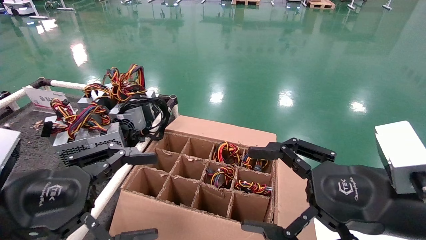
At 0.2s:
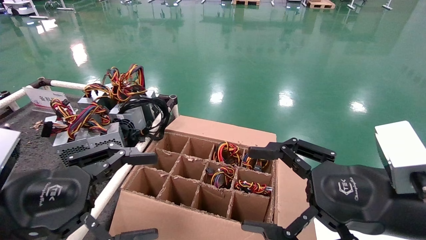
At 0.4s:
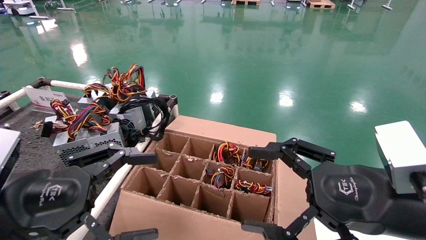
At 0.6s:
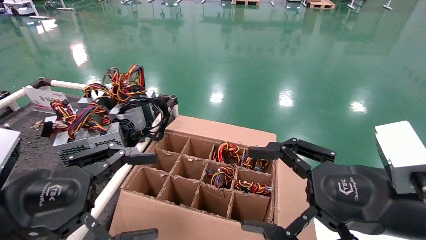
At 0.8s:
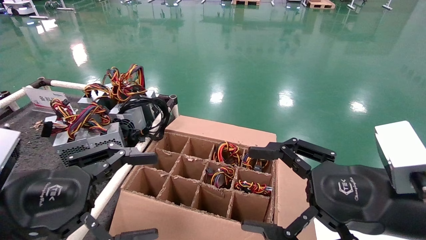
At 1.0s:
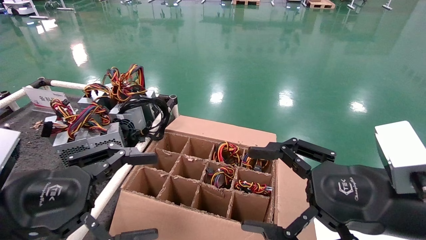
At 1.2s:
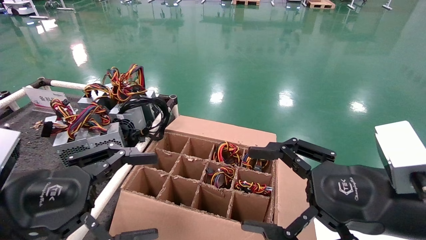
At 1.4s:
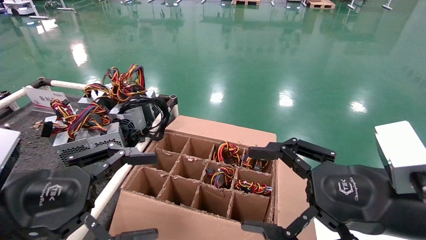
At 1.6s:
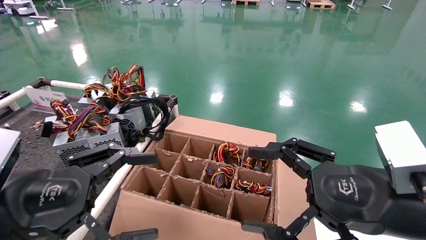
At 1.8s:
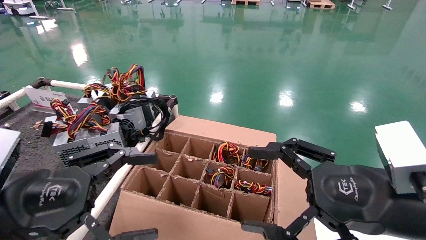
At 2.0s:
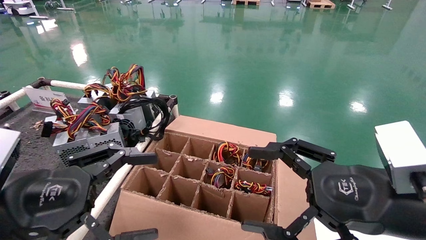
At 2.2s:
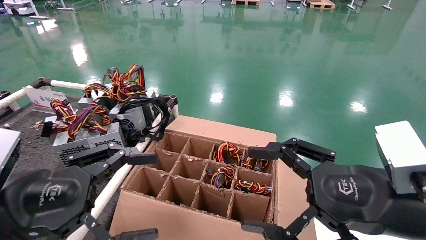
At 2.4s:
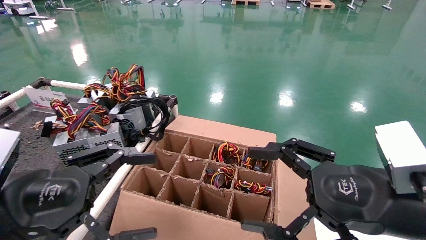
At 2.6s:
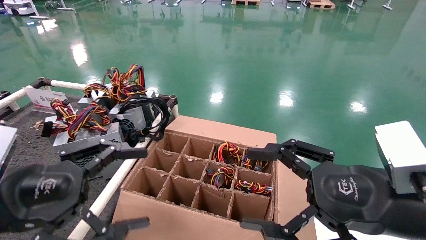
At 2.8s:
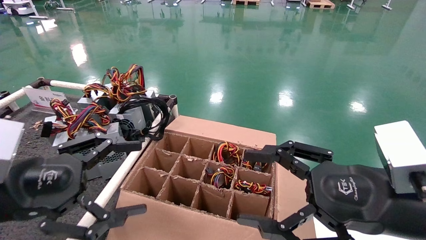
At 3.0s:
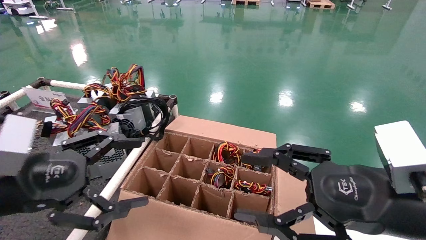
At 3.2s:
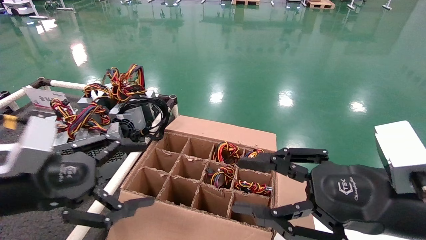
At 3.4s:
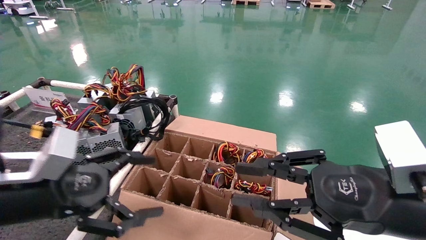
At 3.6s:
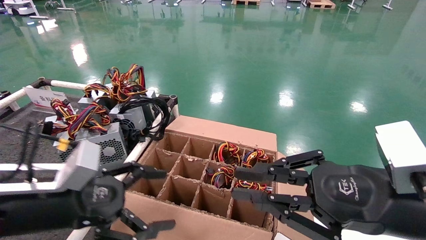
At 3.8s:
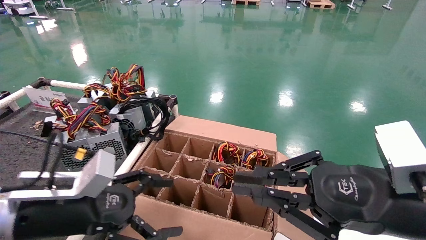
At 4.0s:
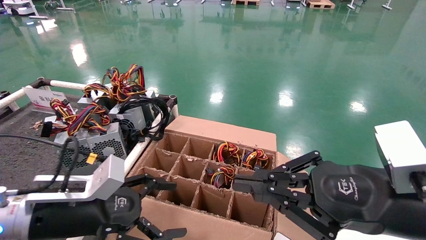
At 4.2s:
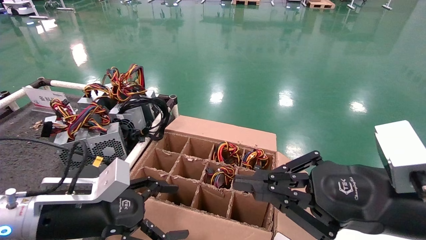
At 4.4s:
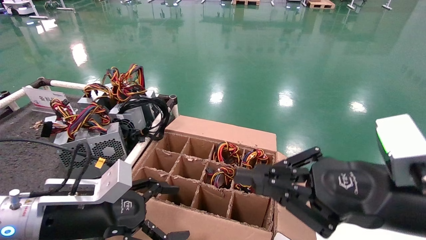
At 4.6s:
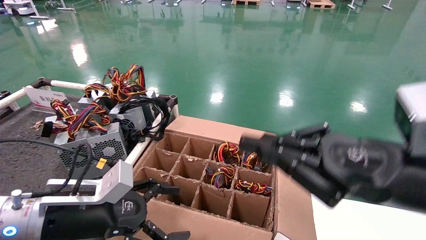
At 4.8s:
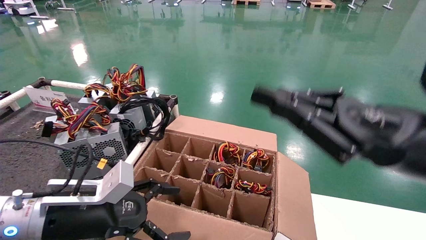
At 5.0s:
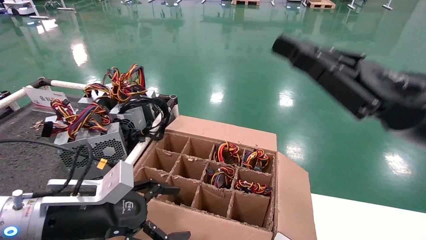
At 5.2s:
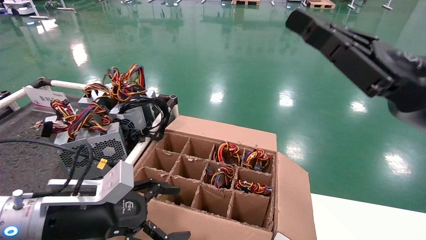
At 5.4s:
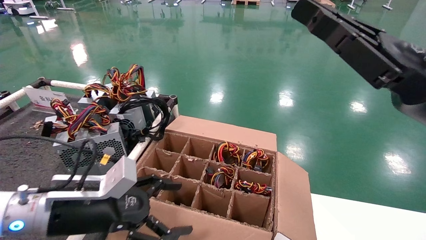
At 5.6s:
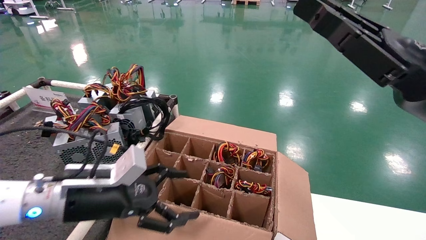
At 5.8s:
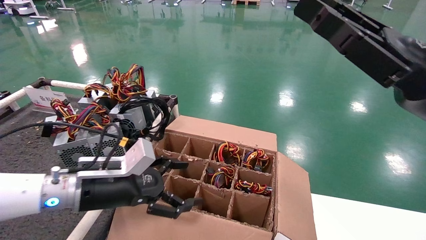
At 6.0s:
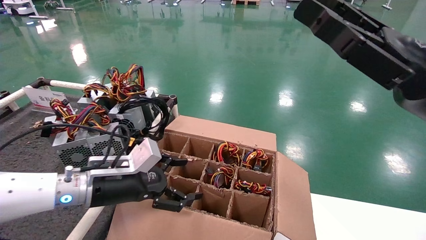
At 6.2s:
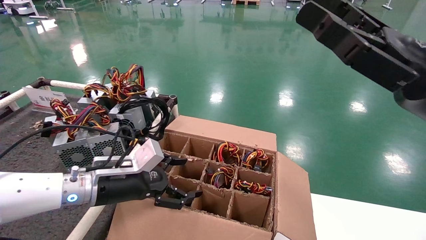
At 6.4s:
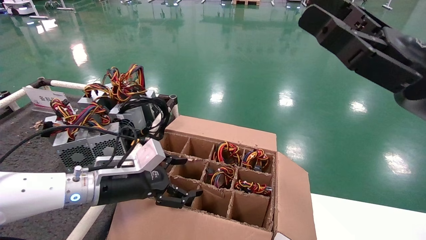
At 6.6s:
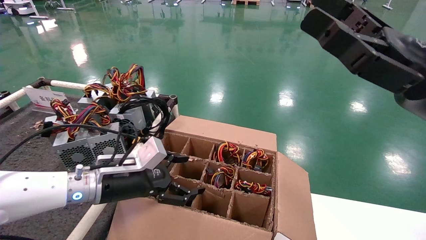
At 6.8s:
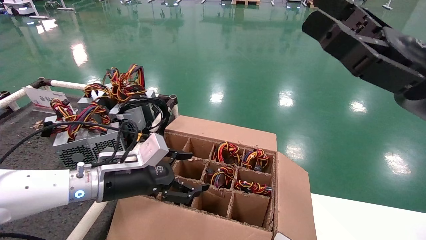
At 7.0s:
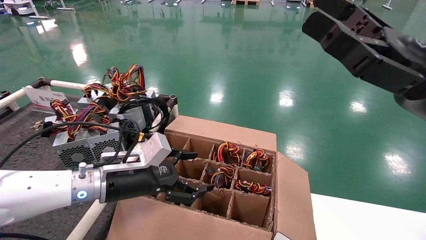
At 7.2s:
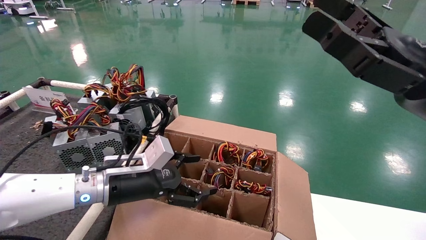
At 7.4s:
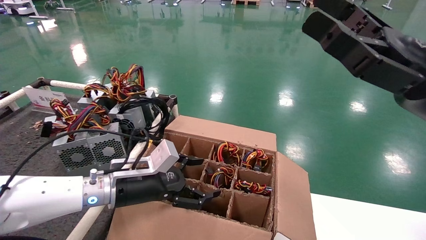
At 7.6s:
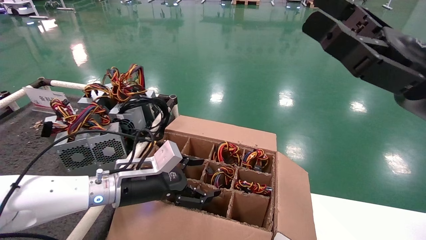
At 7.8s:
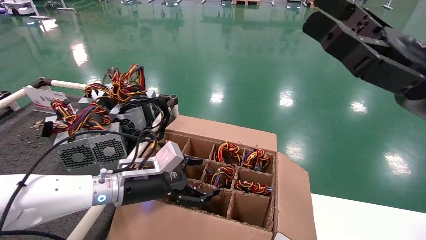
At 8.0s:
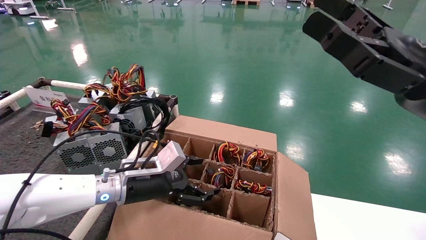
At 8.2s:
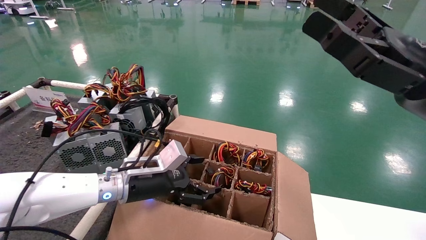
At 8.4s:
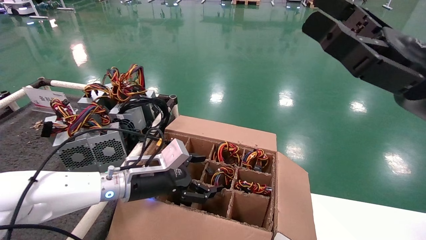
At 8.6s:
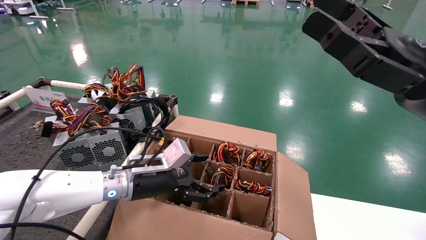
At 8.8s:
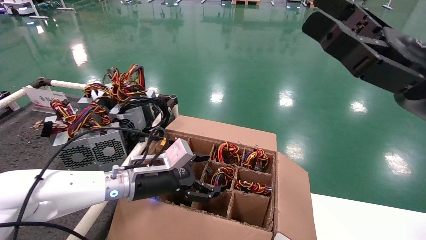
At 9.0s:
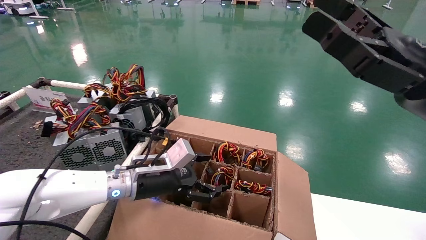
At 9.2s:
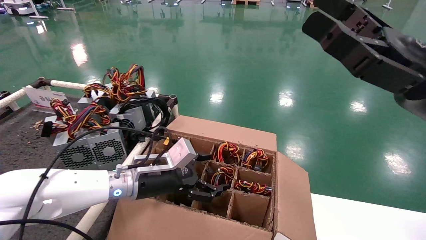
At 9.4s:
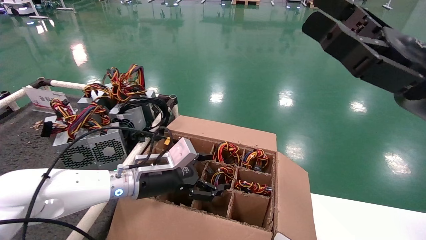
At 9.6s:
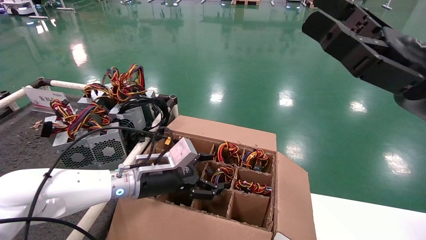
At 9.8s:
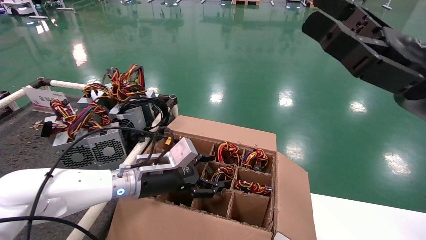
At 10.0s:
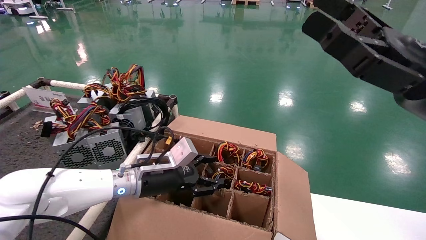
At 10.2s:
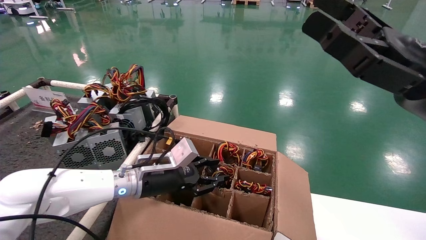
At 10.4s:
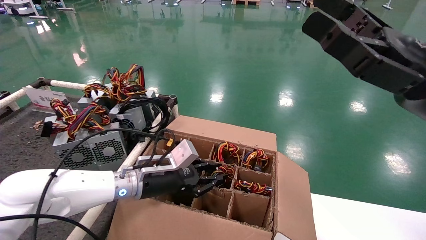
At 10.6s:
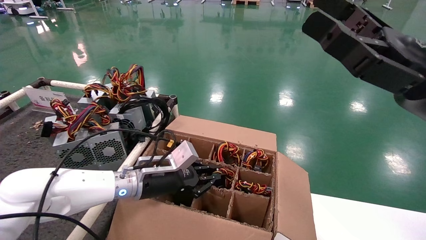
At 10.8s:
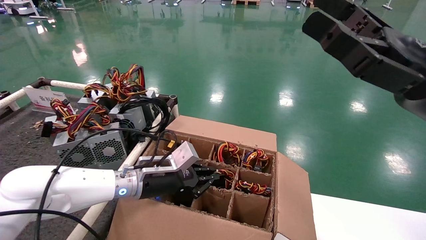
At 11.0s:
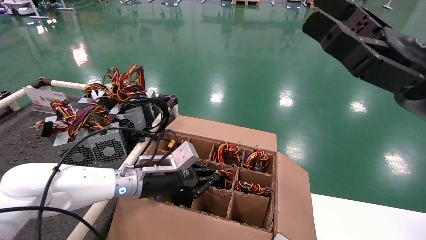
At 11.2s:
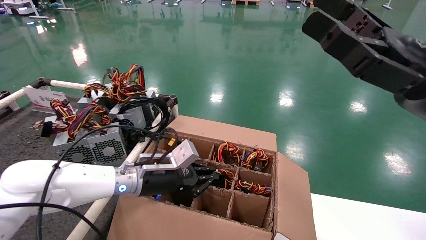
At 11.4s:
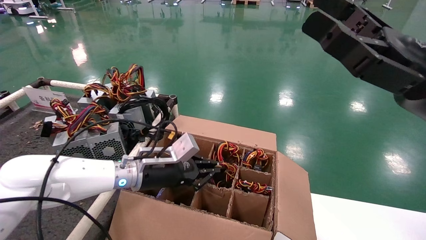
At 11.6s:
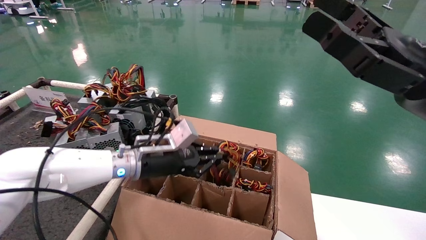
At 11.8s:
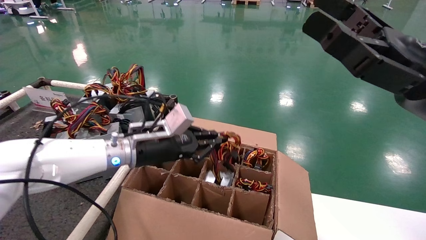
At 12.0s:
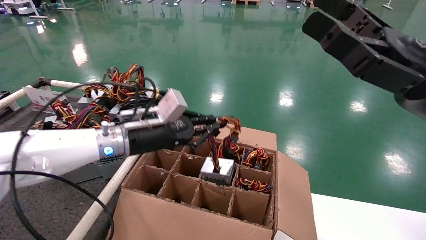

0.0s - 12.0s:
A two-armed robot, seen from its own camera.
Step, 0.0s - 10.8s: Grasp the battery.
0.0s - 1.6s: Both grippers stay put.
1.6s - 3.0s: The grippers stay close to where they were, moving slightly.
3.0s - 4.4s: The left gripper heads downward, forward and to the right, covering roughly 10 cm. The right gripper closes its fingers.
4.4s - 6.0s: The left gripper shifts roughly 5 cm forward; the right gripper shifts approximately 10 cm upward.
6.0s - 7.6s: The right gripper opens its fingers, while the left gripper changes place by about 5 cm.
7.6s - 9.0s: The grippers stay close to where they were, moving slightly.
9.0s - 10.4s: The left gripper closes its fingers.
10.4s - 12.0s: The left gripper heads upward, covering approximately 10 cm, and closes up.

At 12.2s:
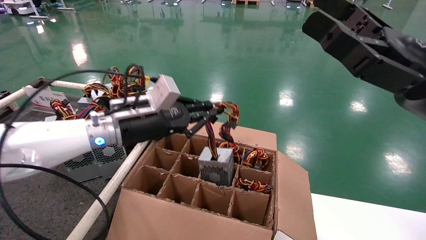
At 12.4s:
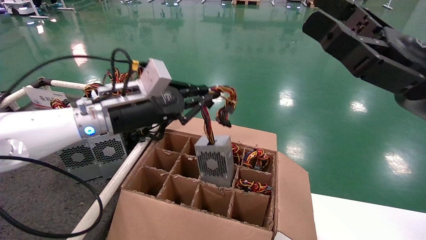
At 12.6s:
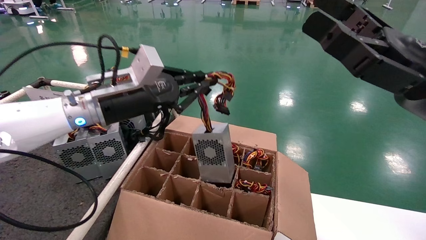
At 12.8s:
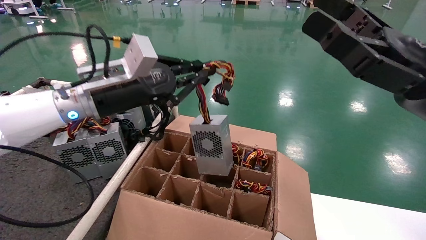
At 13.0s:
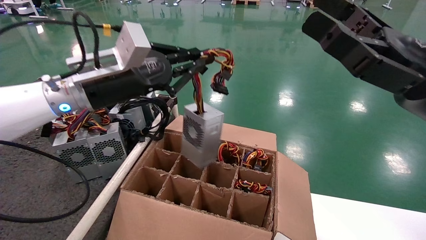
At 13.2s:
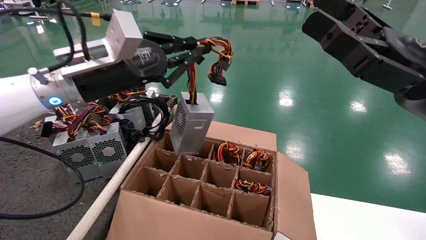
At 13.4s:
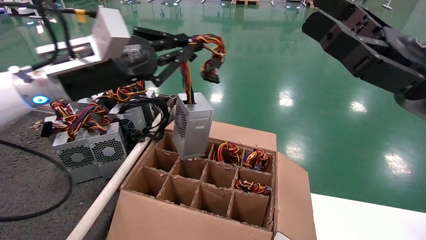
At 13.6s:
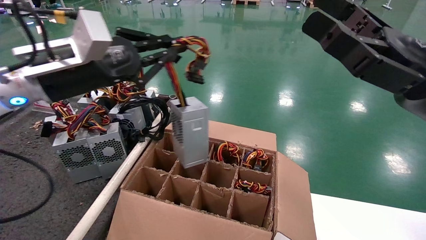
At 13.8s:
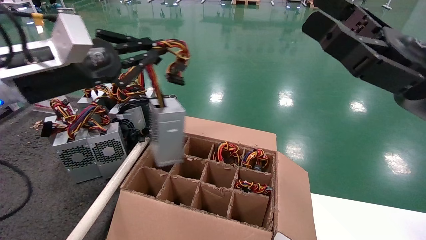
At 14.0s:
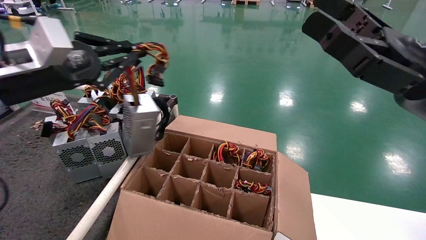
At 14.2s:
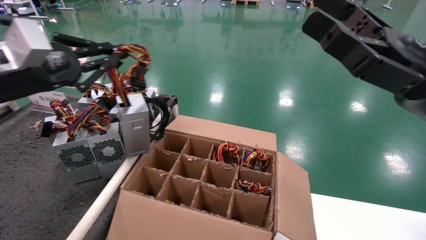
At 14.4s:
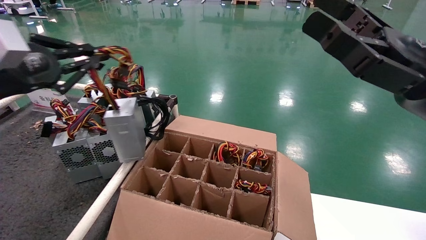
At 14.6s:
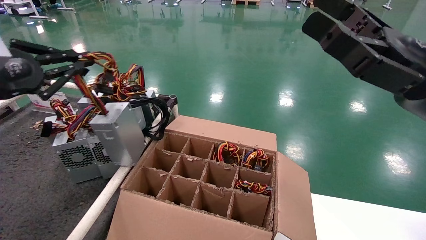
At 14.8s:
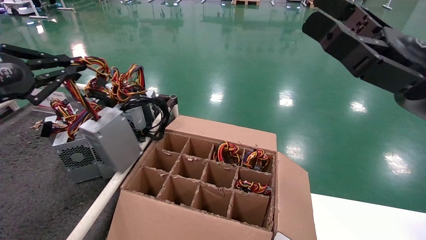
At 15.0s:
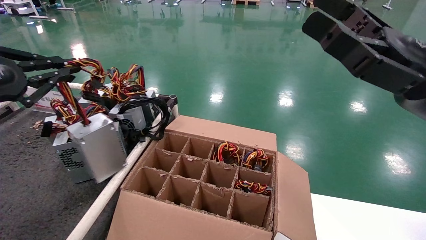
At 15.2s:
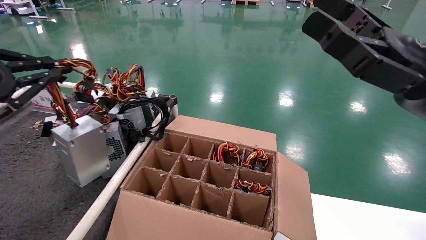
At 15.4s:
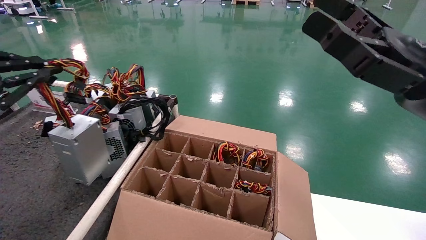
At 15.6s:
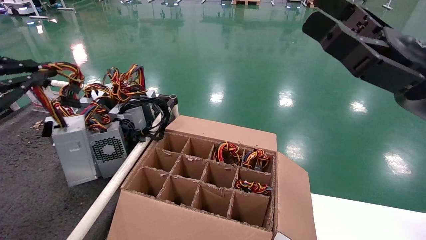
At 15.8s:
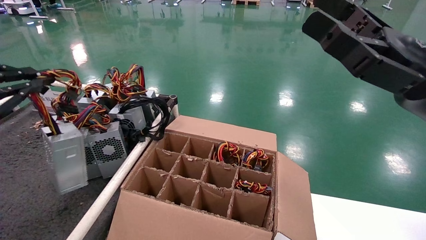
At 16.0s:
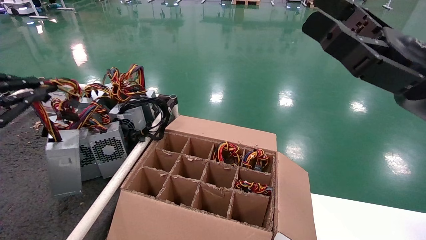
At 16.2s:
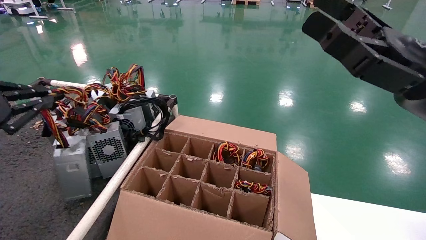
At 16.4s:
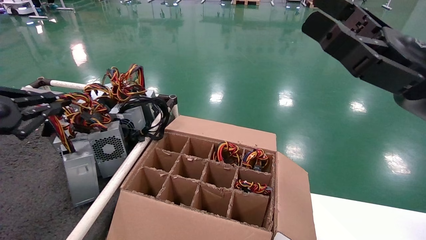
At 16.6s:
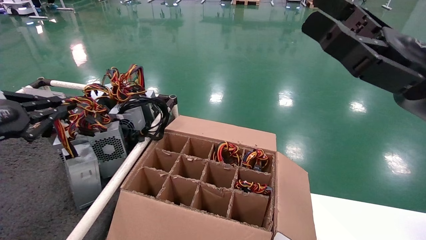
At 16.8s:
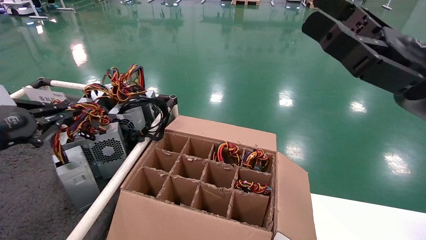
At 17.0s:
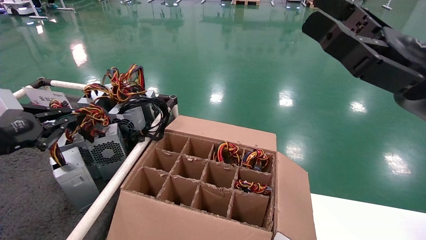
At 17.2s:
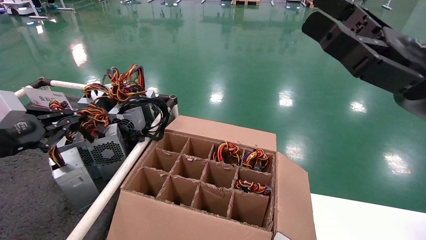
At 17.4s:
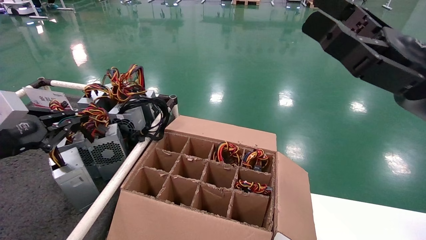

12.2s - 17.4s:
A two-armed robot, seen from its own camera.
12.2s - 14.0s: The left gripper moves to the left, upward and backward, some 20 cm.
14.0s - 15.6s: The left gripper moves to the left and backward, approximately 15 cm.
15.6s - 17.4s: The left gripper heads downward and forward, covering approximately 10 cm.
